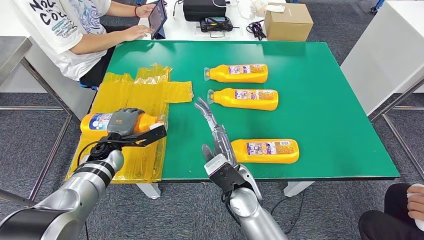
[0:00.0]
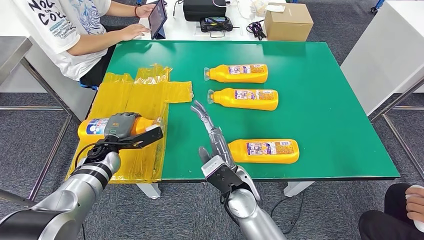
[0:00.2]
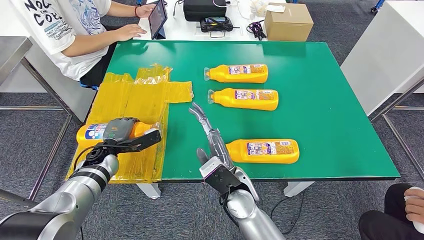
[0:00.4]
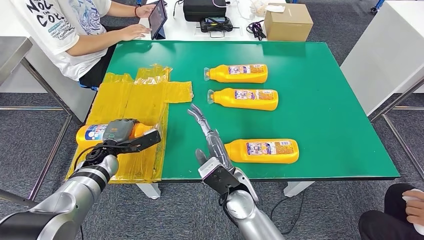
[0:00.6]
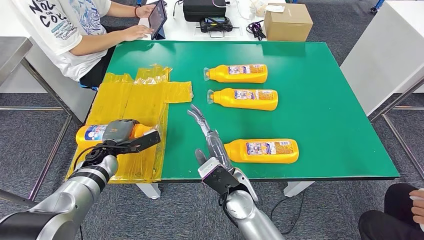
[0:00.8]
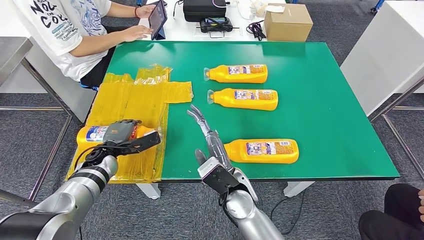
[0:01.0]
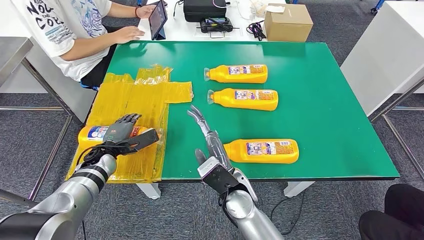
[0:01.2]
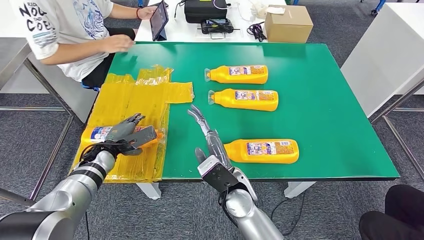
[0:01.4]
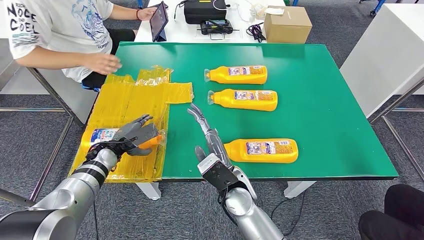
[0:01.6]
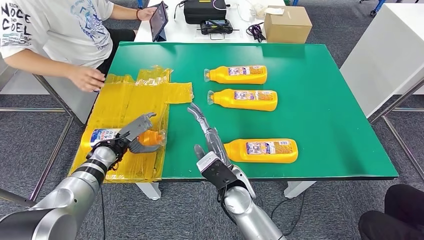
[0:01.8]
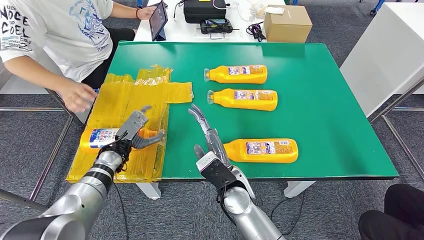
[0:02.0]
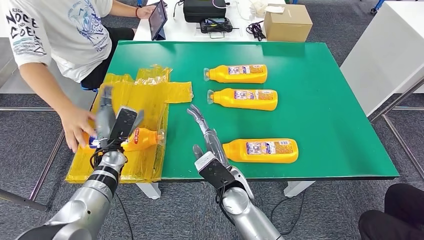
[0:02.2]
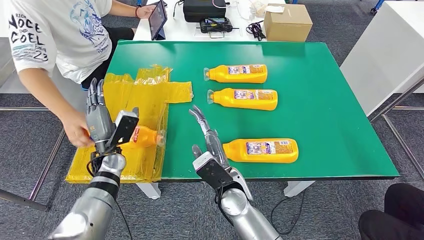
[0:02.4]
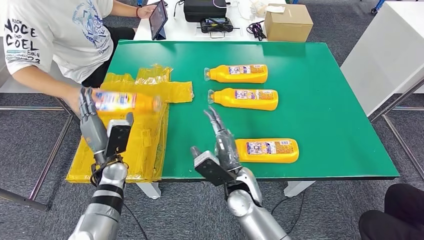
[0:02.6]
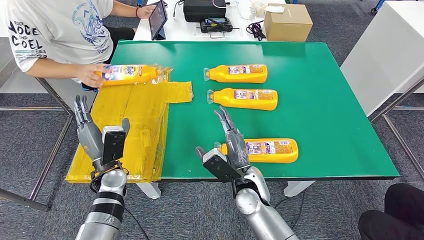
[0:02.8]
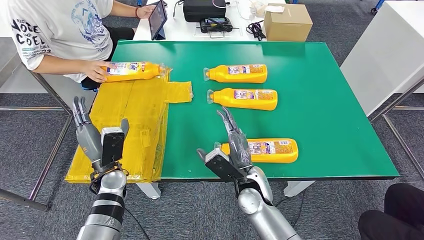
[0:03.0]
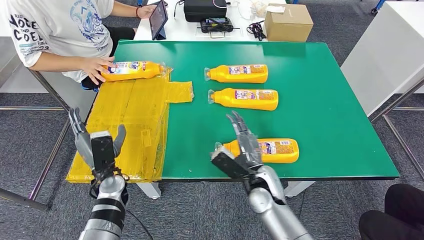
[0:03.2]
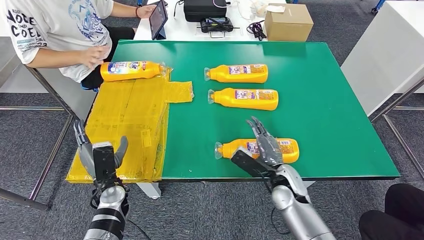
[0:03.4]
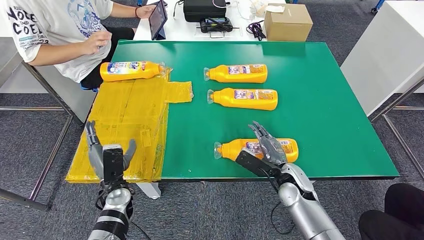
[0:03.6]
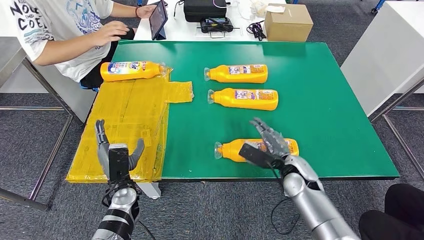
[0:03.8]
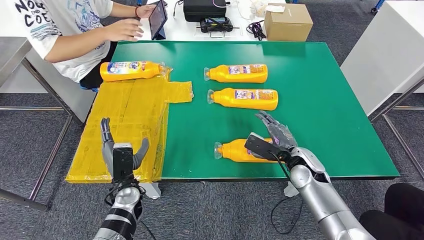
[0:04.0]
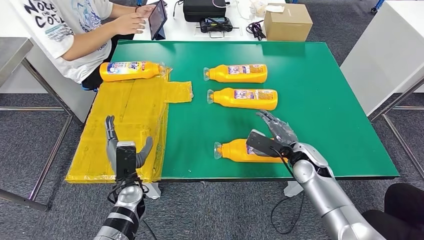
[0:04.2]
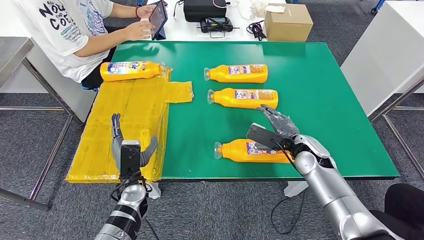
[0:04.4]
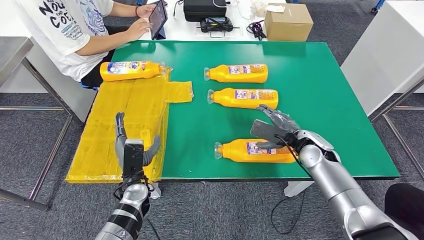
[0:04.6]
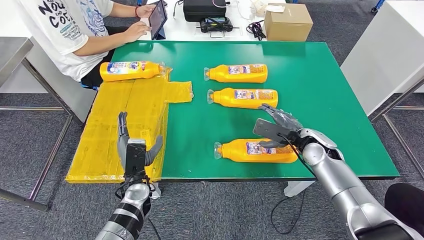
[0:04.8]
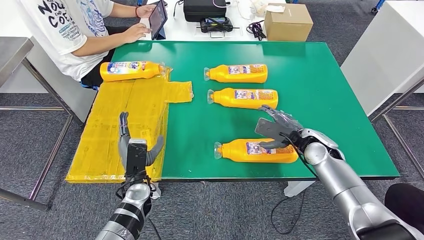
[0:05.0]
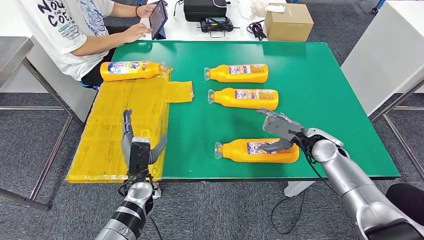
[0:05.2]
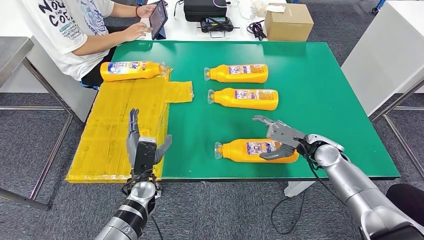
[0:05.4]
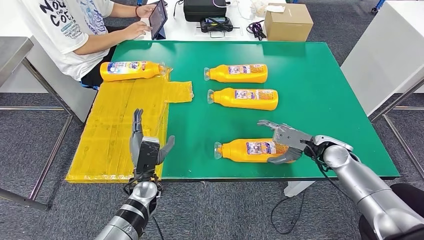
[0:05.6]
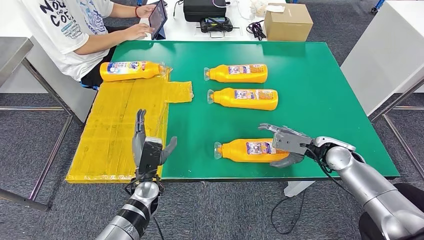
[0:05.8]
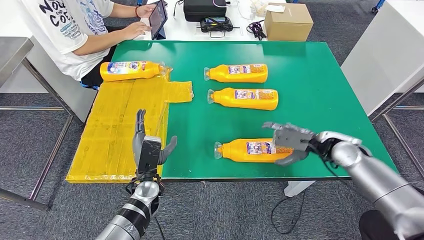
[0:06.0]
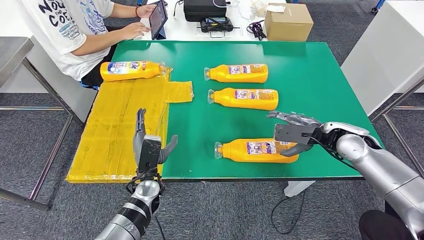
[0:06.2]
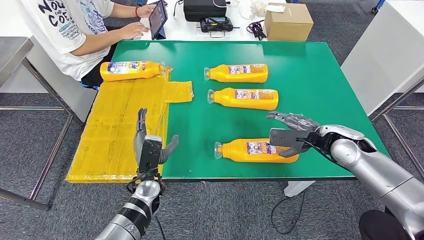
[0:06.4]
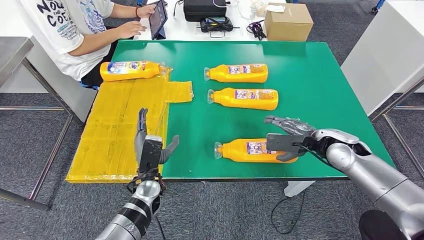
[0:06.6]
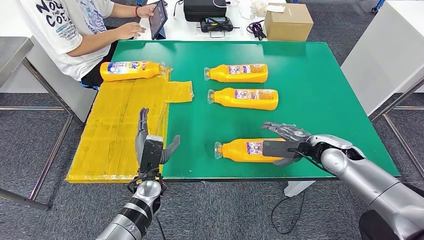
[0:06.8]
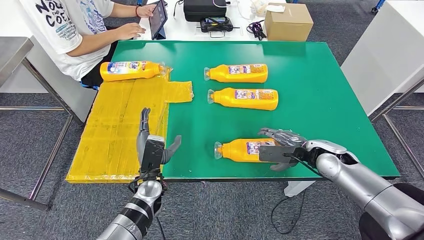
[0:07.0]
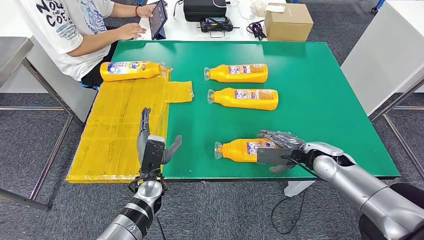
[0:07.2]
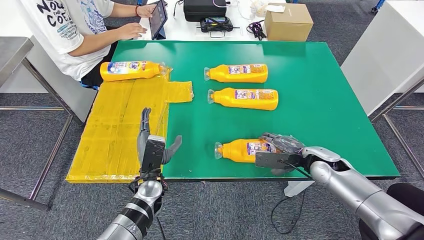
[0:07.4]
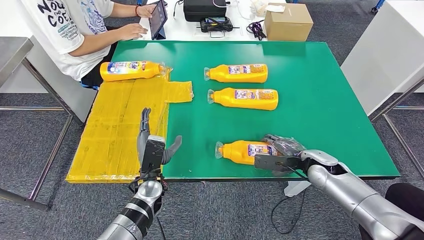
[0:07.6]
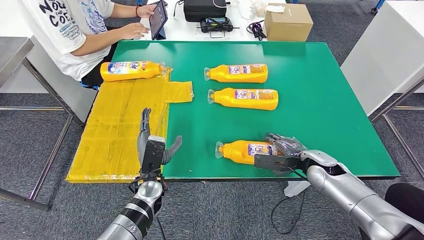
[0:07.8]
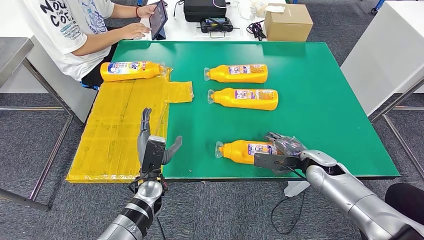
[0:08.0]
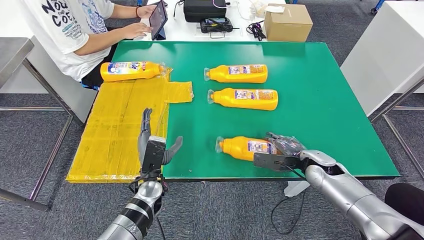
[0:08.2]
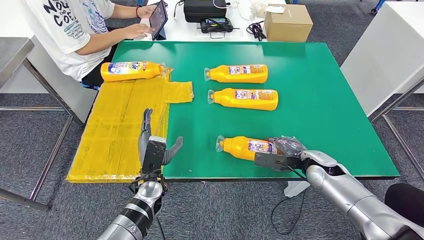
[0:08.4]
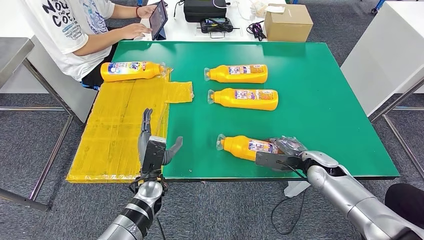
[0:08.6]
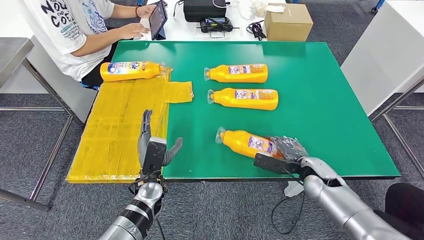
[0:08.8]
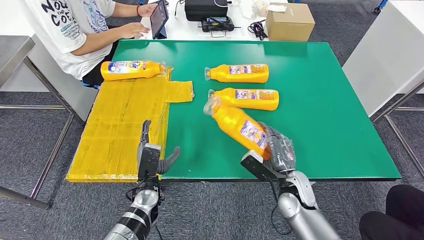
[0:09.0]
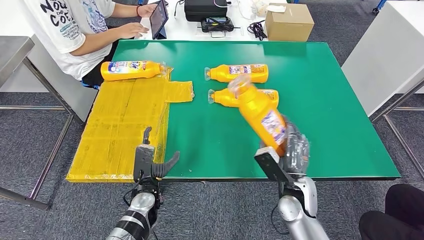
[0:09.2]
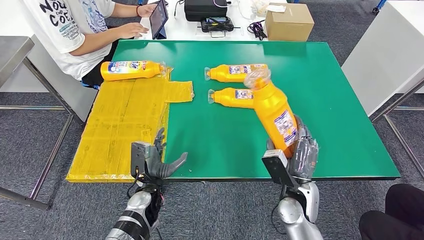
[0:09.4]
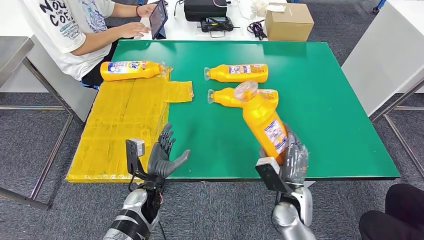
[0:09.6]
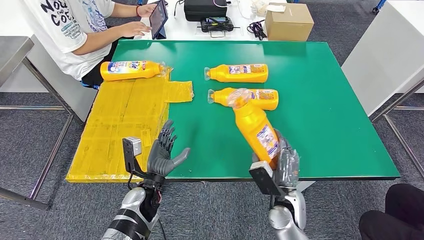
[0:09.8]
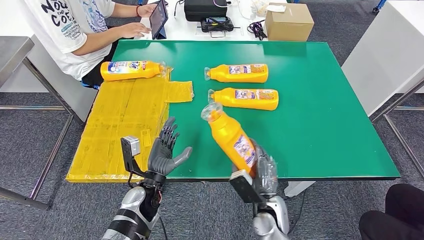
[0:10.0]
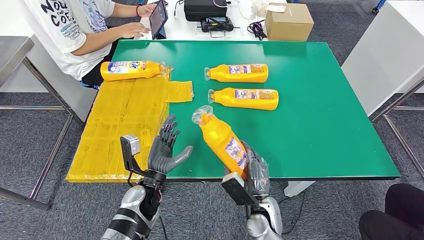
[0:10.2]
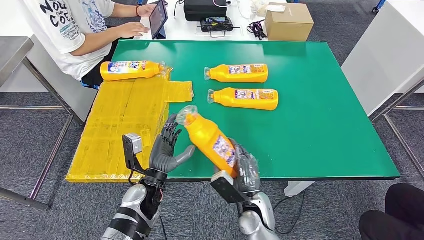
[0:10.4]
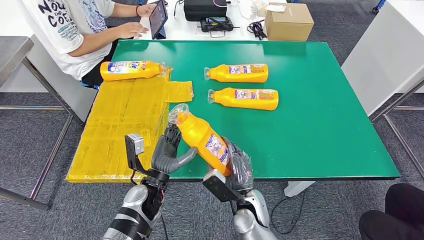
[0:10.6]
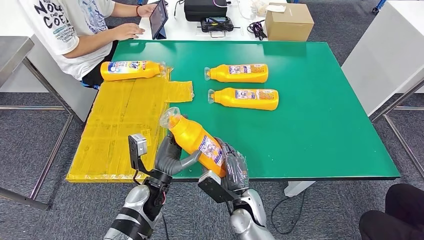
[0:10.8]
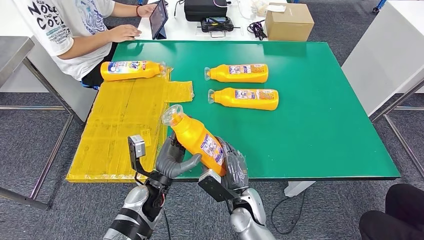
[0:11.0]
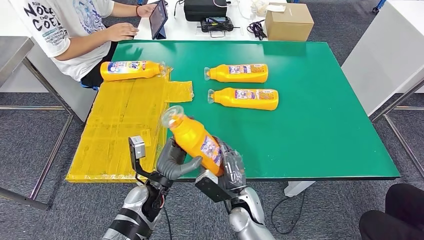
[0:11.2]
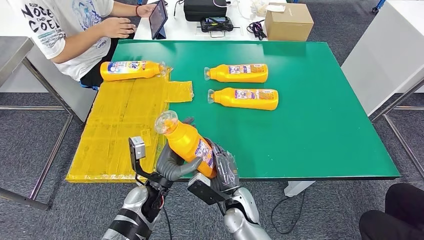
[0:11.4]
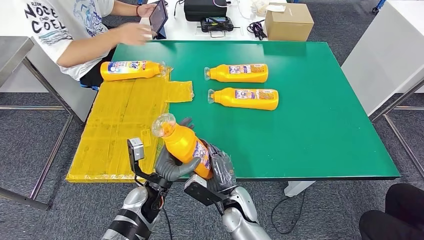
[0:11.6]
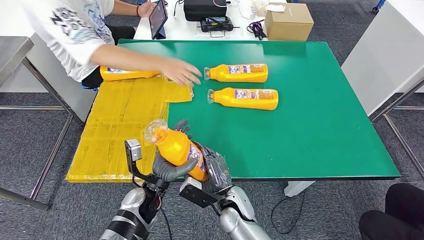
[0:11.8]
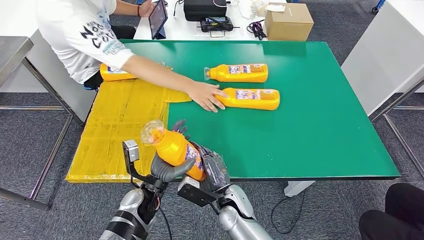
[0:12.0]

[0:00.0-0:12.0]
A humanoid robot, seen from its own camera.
Step, 0:00.0 to 0:02.8: Flip the bottle to face forward.
0:04.4 to 0:06.0: The right hand heads to the right, covering about 5 cm.
0:06.0 to 0:07.6: The right hand shifts roughly 5 cm downward.
0:07.6 to 0:09.0: The right hand goes approximately 10 cm to the left and backward.
0:09.0 to 0:10.4: The right hand shifts roughly 10 cm to the left.
0:10.4 to 0:12.0: The right hand shifts approximately 5 cm to the left.

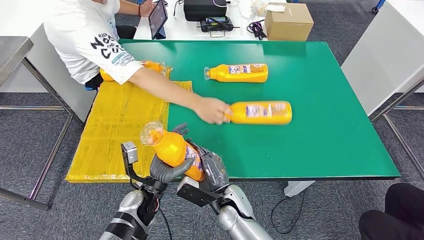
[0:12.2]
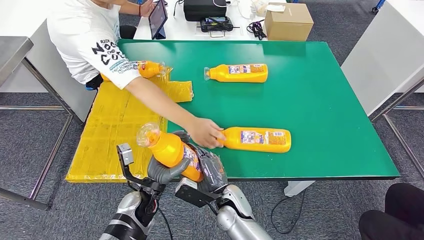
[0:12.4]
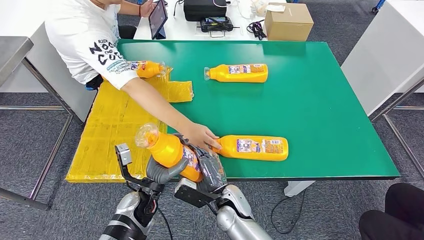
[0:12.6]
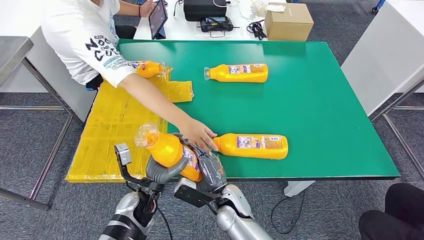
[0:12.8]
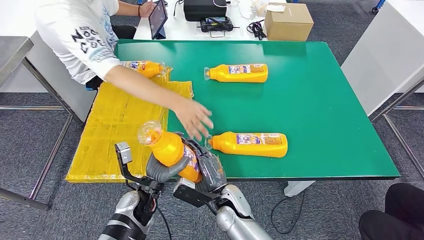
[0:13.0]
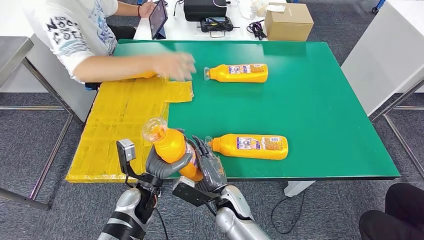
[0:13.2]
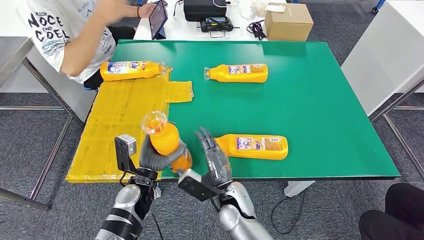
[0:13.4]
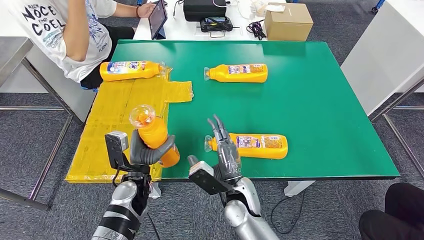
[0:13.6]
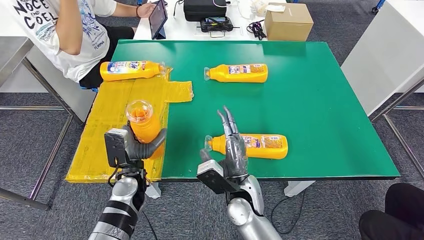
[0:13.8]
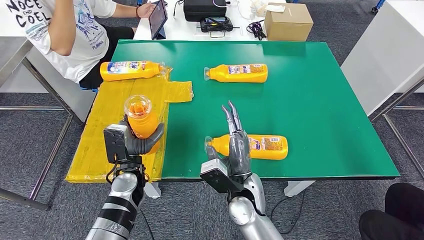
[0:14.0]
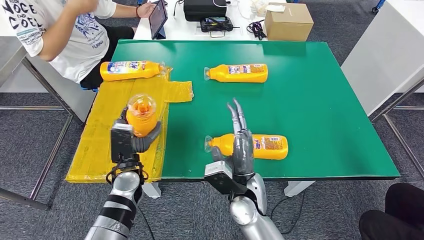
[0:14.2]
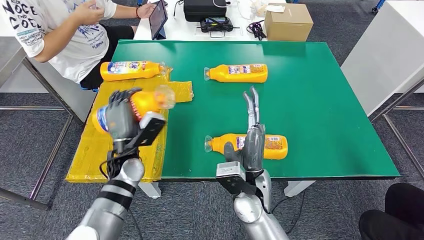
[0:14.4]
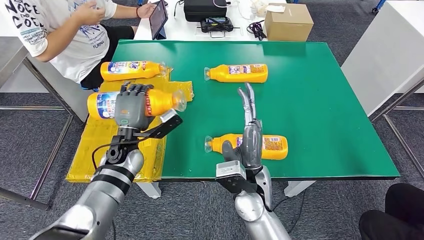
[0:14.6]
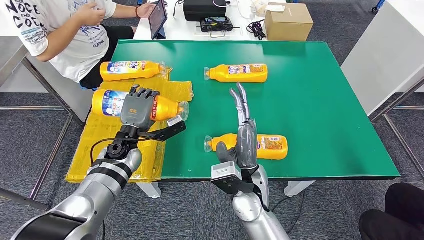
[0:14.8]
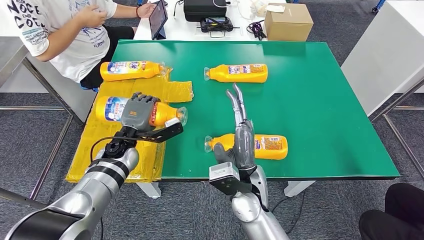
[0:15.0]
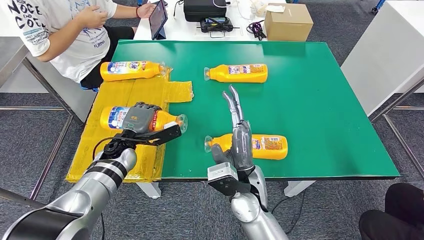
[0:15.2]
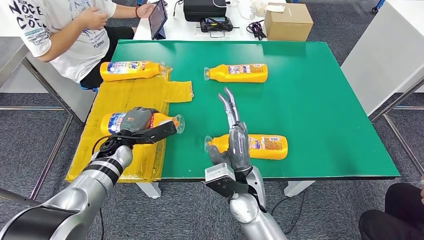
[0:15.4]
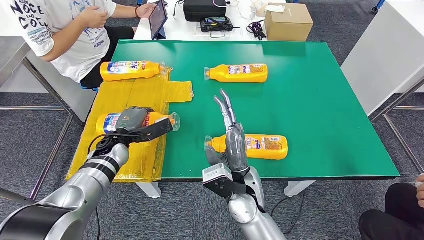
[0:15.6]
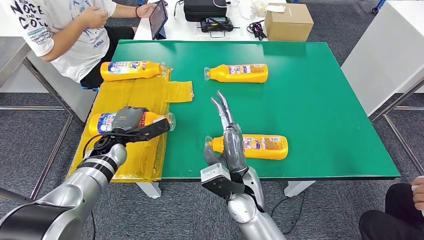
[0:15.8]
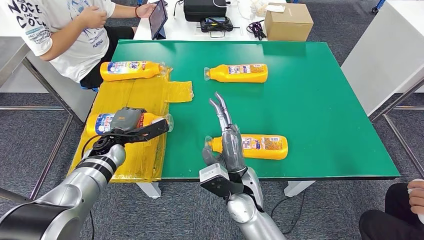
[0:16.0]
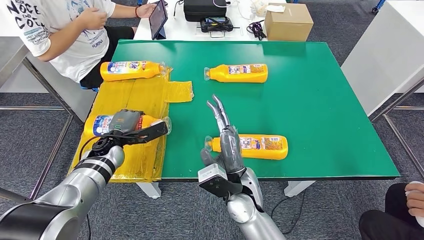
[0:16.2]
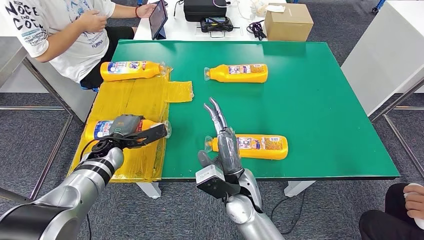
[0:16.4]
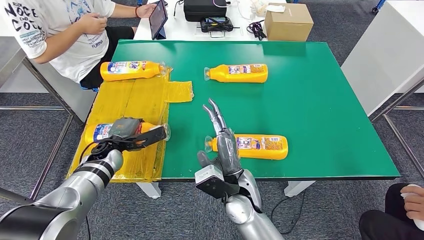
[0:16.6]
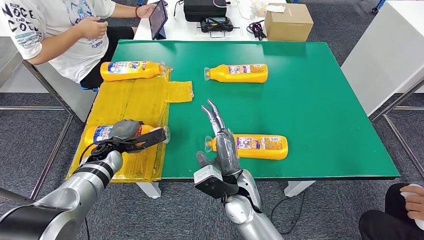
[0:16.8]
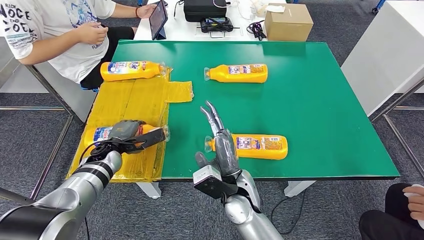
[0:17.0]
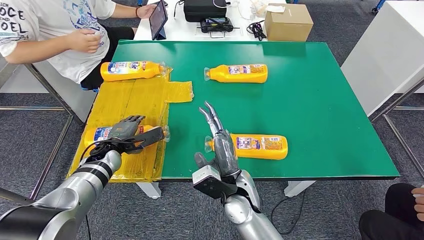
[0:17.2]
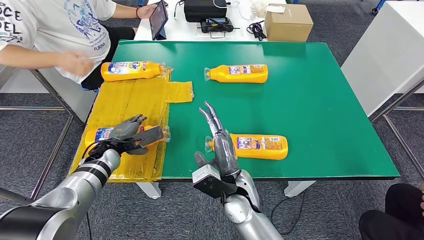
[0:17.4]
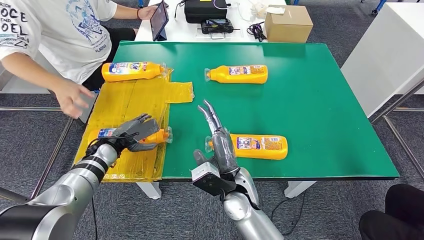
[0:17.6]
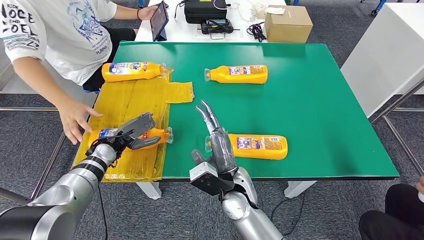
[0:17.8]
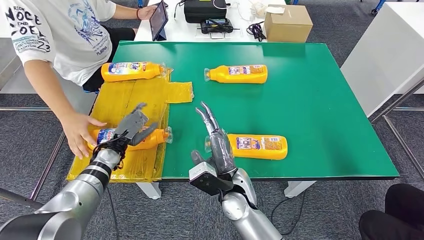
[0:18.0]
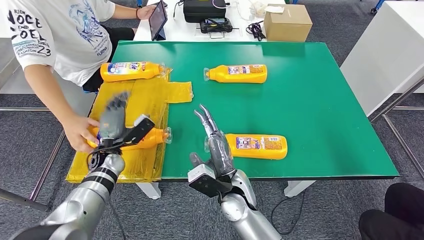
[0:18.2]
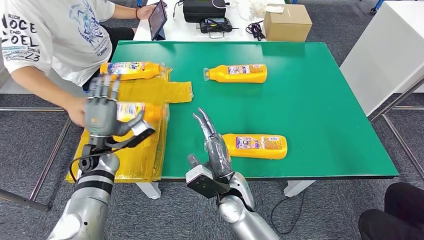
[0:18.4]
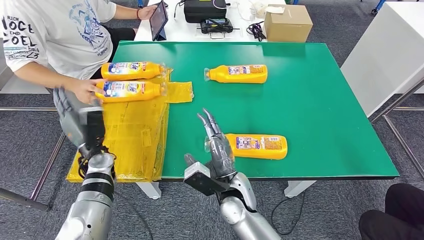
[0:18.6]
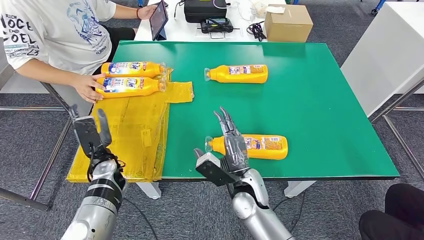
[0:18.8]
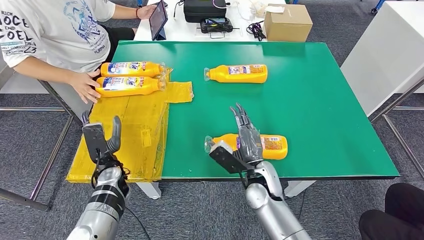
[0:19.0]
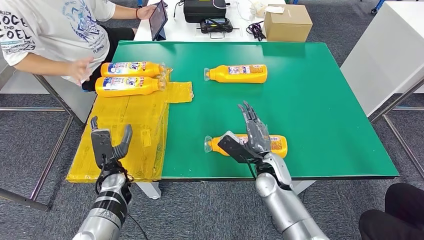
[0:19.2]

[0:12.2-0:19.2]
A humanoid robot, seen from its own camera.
0:15.0 to 0:16.4: The left hand travels to the left by roughly 5 cm.
